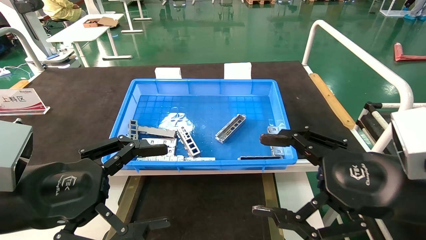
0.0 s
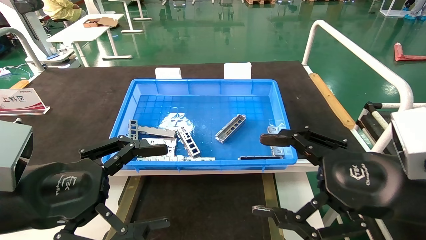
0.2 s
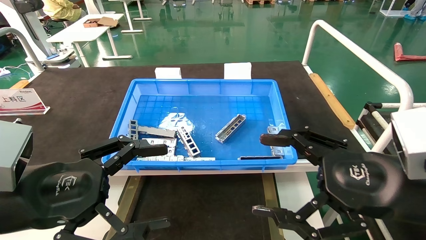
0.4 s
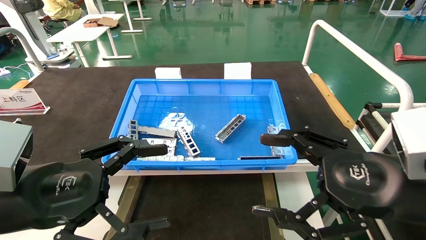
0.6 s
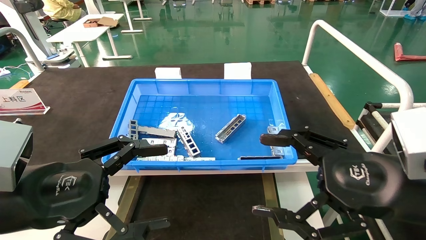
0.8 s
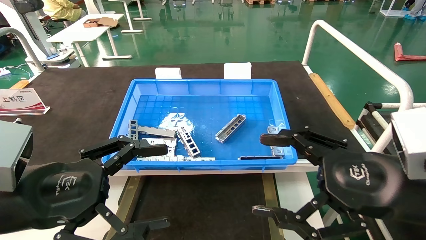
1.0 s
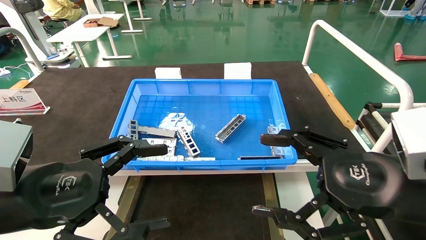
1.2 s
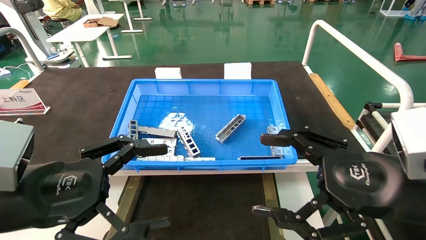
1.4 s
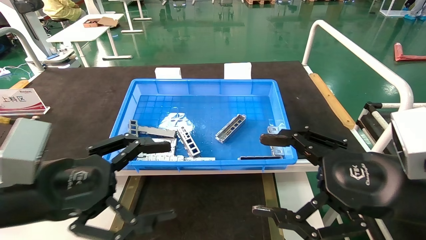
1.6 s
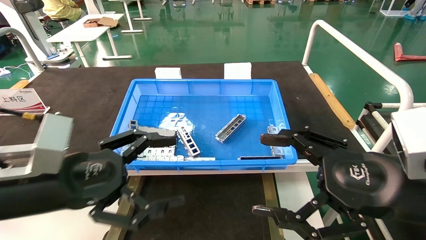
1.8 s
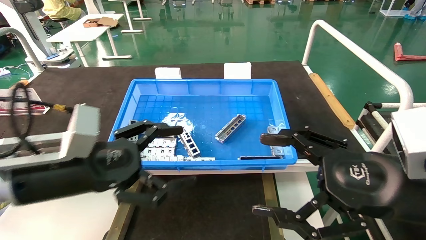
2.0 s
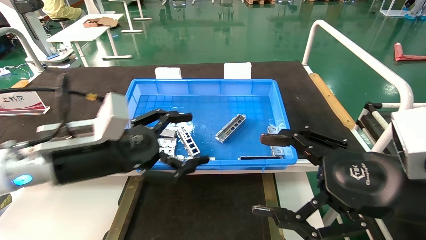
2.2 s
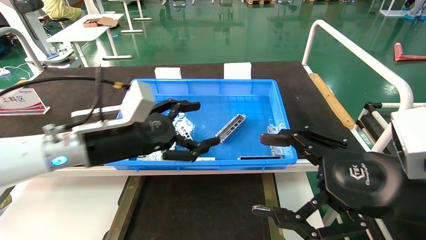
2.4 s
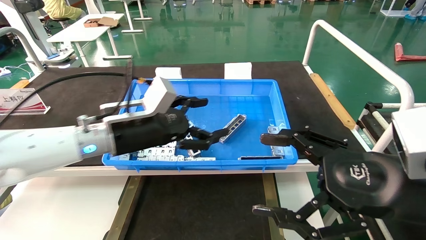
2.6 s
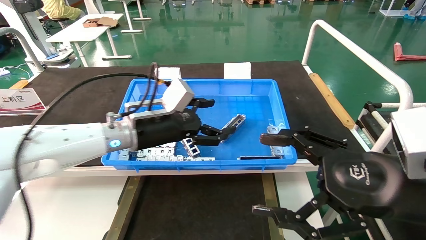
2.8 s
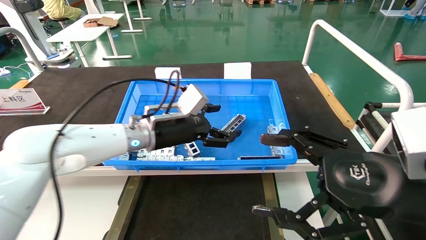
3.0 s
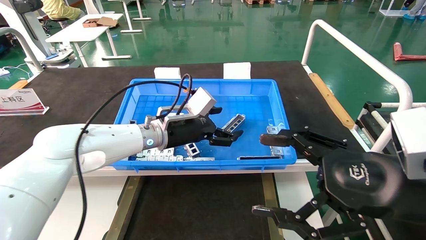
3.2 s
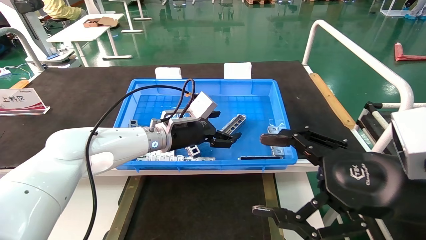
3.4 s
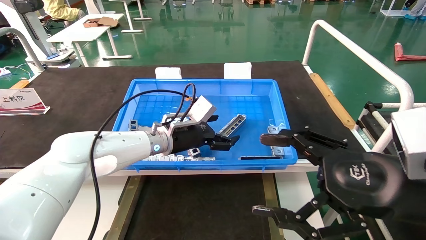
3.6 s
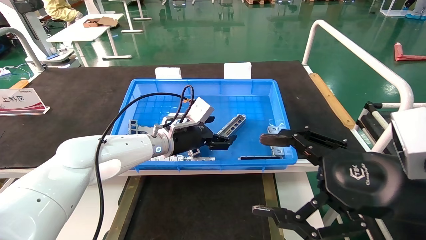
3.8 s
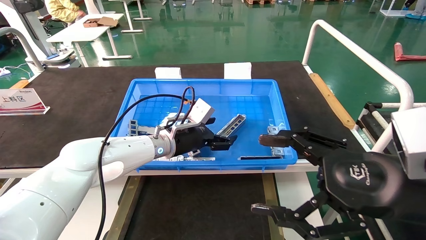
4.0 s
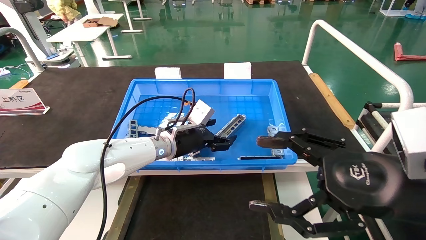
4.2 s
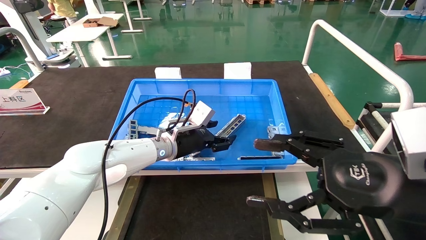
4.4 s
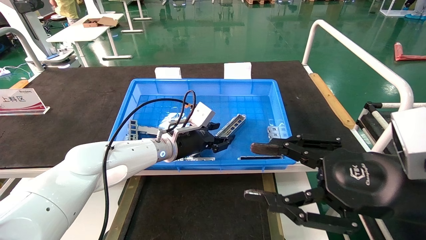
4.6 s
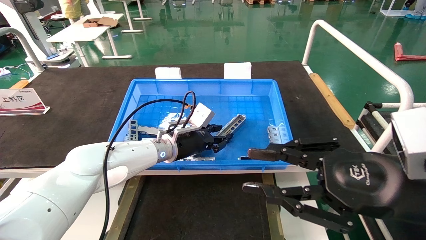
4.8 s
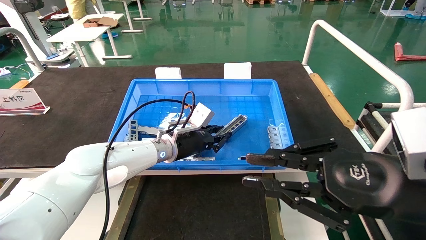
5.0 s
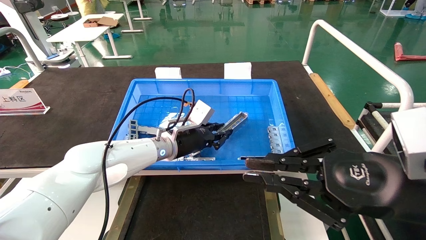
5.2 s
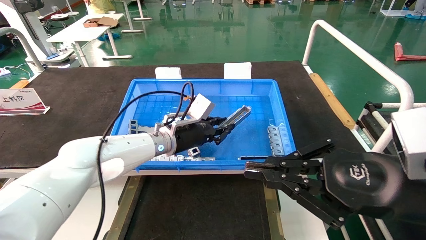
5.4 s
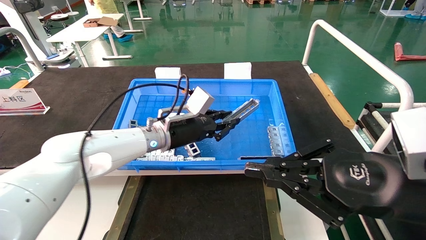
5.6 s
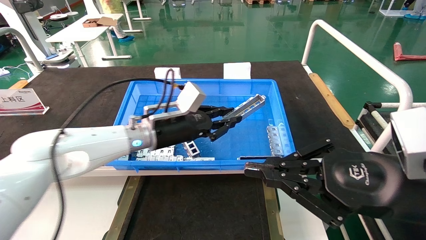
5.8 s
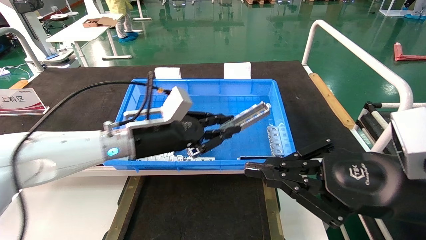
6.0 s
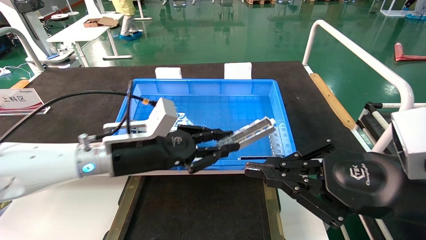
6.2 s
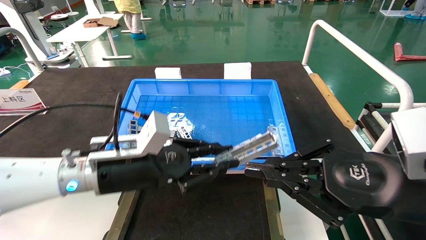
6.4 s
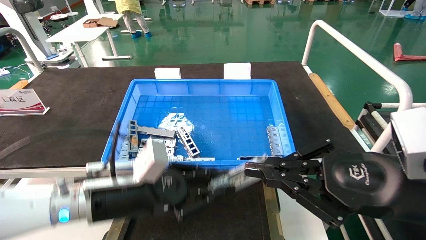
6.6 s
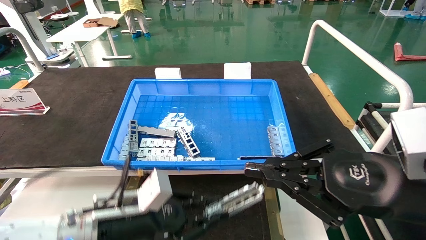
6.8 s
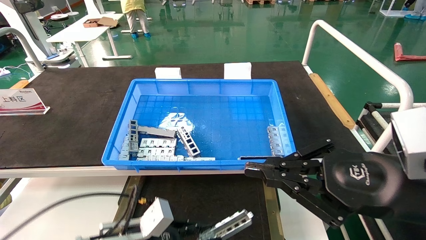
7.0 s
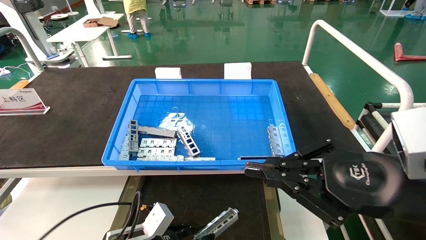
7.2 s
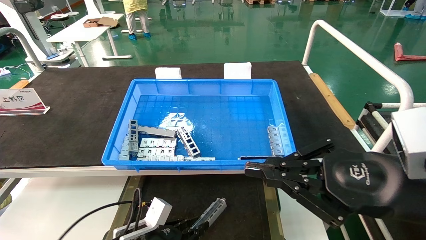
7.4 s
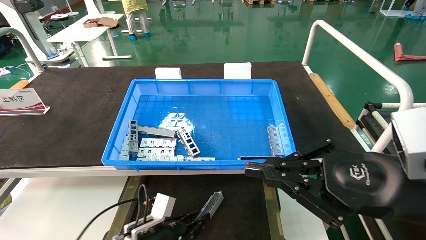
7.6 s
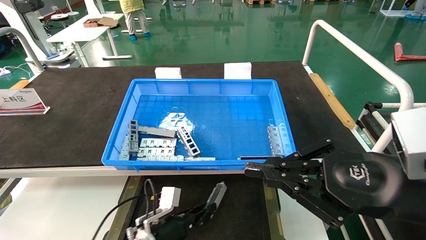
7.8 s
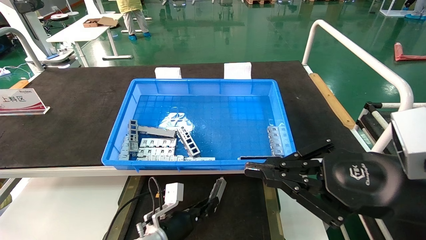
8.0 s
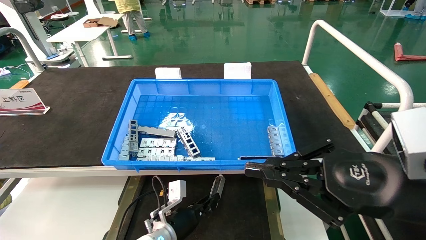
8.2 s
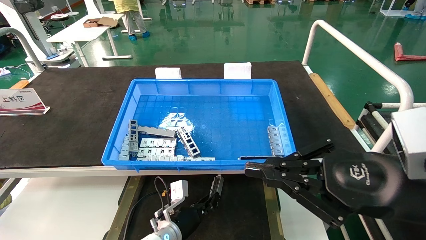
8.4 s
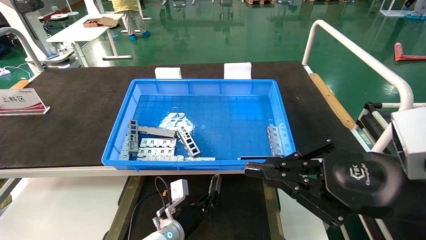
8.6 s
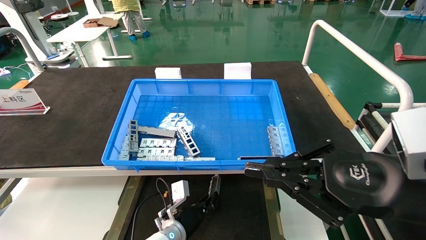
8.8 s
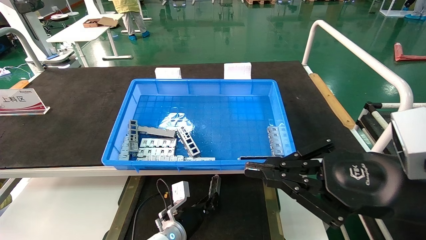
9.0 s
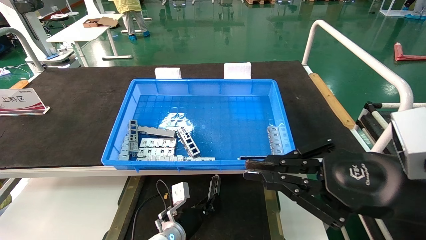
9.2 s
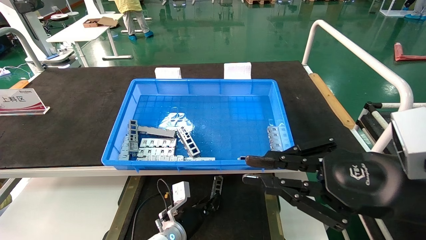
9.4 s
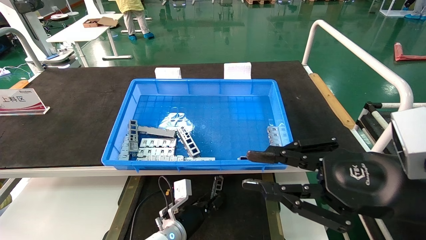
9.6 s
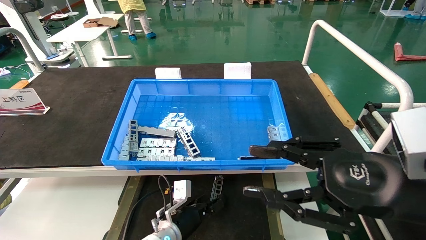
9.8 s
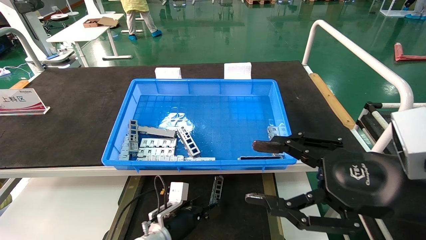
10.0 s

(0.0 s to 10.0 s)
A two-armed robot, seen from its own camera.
Task of the whole recording: Grasp the part with one hand and place it on the black container.
Step, 1.8 s - 5.2 s: Pick up the front USB bracket from the feeding area.
Step, 5.4 s - 9.6 s: Place the front USB bracket into the box.
0.0 s - 1.4 s: Neither gripper changes place.
1.4 s - 2.8 s: The left gripper travels forward and to the right by about 25 cm.
2.8 s - 4.2 s: The left gripper is displaced forward and downward by roughly 10 cm.
4.2 s - 5.8 s: The right gripper closes up; the left gripper goes approximately 5 cm backward, and closes its fingers.
5.8 s - 7.2 s: The left gripper travels downward and backward by about 25 cm.
7.2 s - 8.6 s: The left gripper goes approximately 15 cm forward, to the right and downward.
8.6 s - 10.0 s: The left gripper opens its fingers; the right gripper opens up.

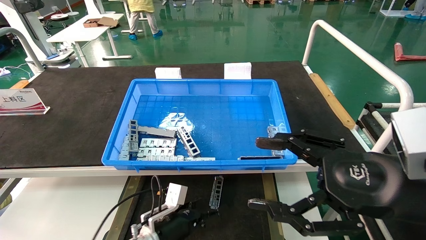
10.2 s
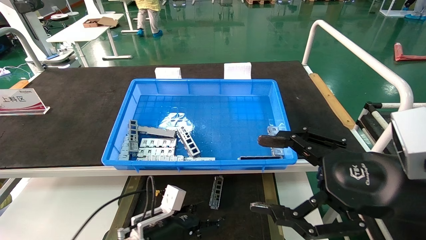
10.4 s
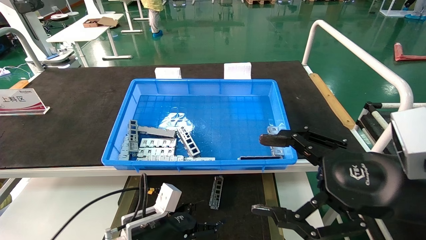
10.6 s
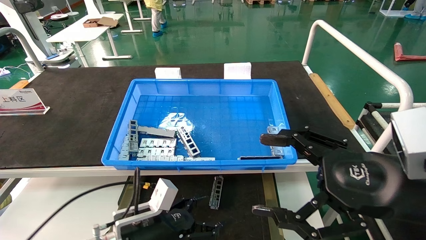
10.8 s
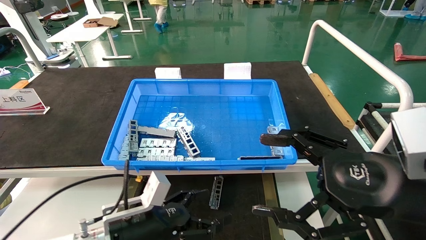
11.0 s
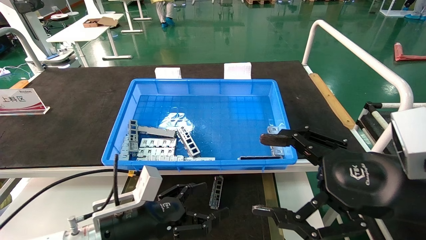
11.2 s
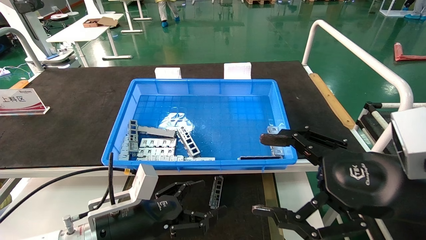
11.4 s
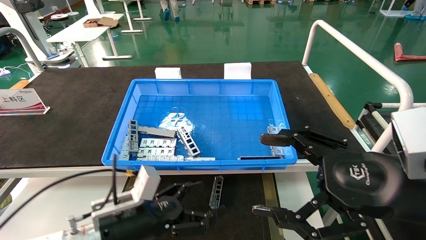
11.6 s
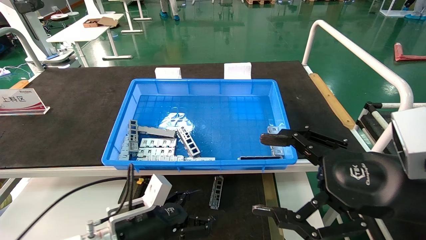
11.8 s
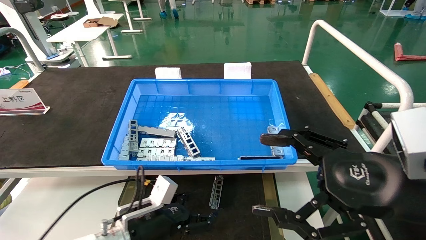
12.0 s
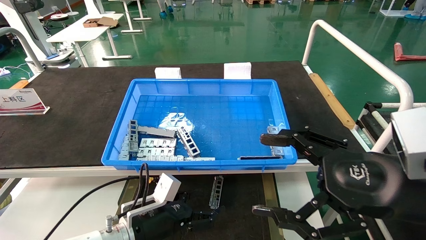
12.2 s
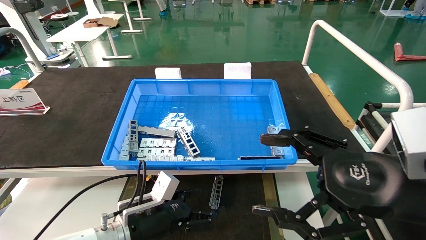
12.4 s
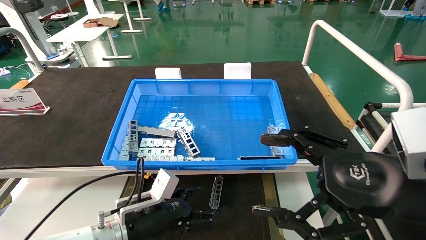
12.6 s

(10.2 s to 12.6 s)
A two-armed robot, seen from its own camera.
Task of the whole recording: Grasp the part with one hand and place it on the black container.
10.2 s - 11.4 s: The left gripper moves upward and backward, about 15 cm.
11.4 s - 12.6 s: The grippers make only small movements.
